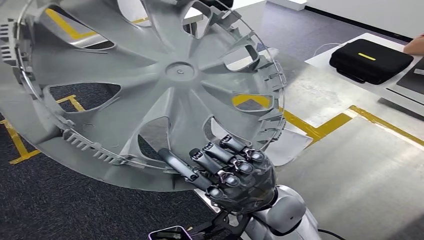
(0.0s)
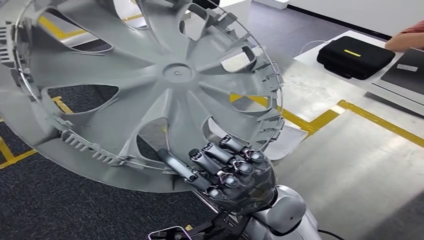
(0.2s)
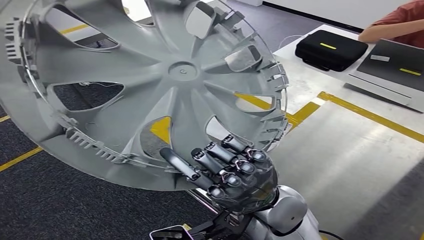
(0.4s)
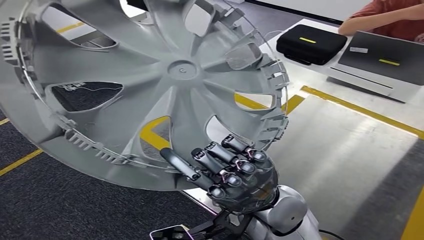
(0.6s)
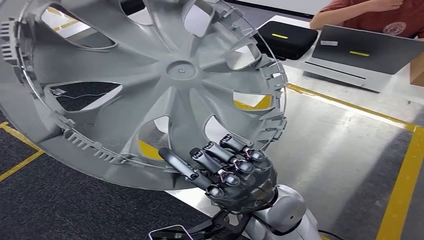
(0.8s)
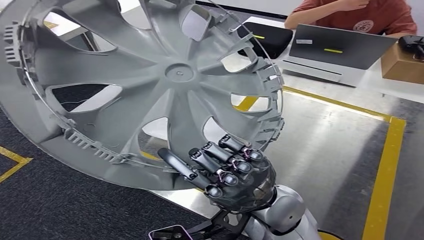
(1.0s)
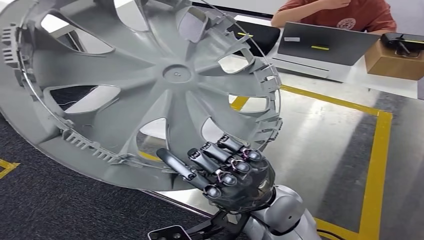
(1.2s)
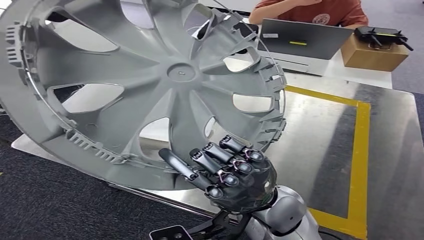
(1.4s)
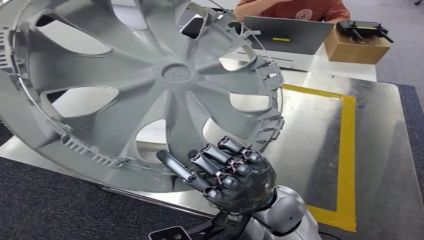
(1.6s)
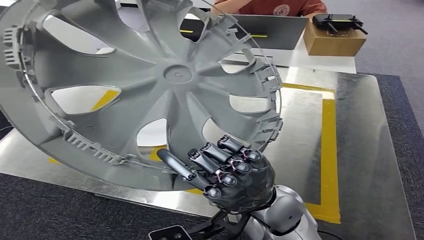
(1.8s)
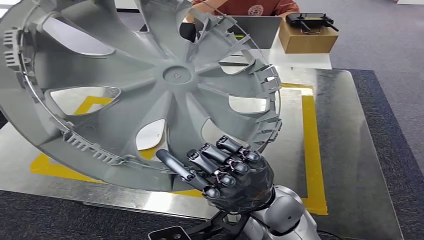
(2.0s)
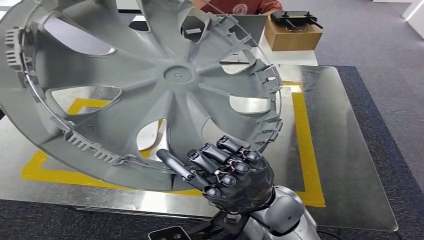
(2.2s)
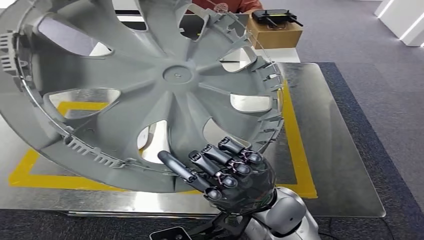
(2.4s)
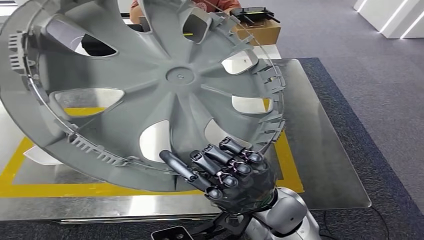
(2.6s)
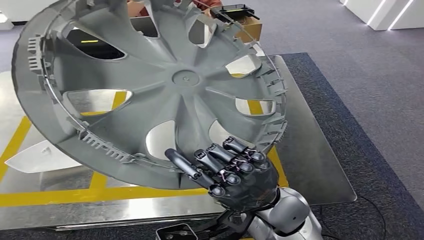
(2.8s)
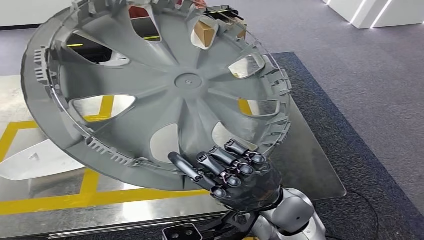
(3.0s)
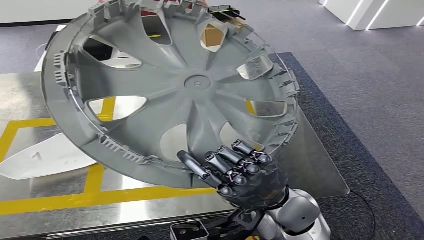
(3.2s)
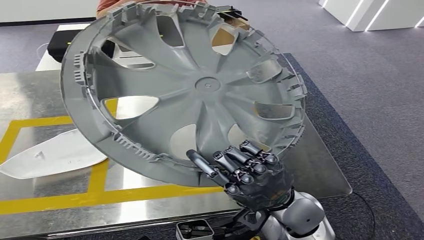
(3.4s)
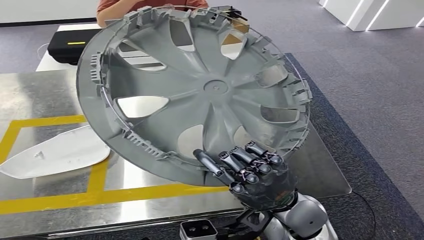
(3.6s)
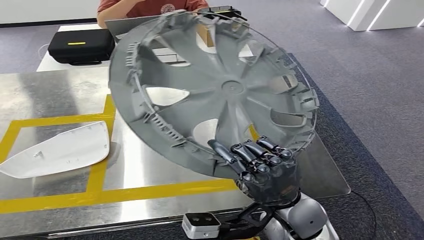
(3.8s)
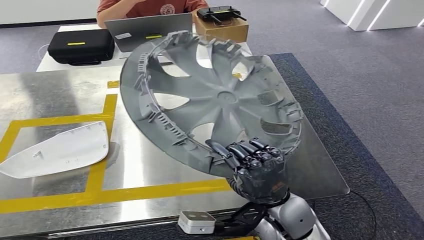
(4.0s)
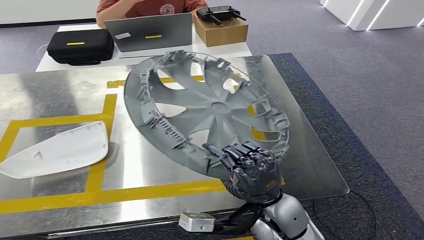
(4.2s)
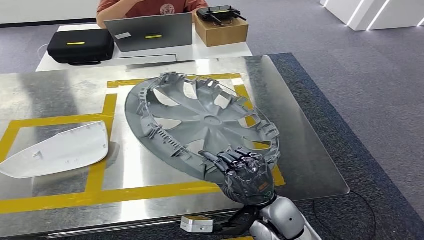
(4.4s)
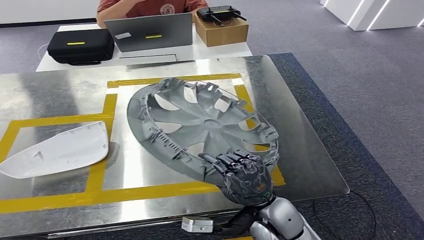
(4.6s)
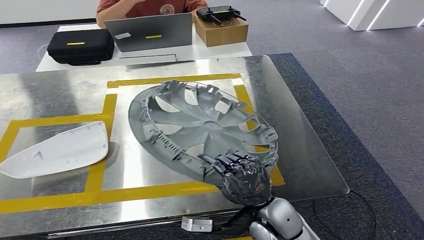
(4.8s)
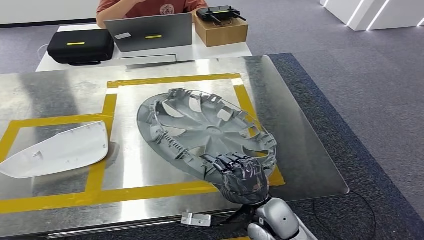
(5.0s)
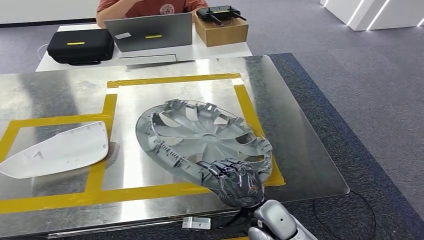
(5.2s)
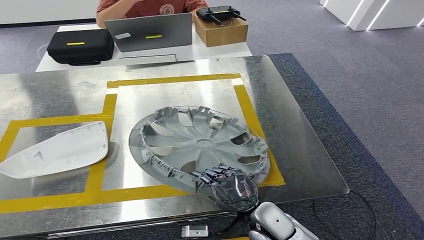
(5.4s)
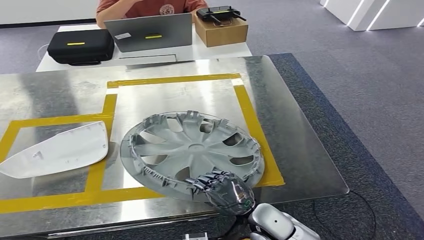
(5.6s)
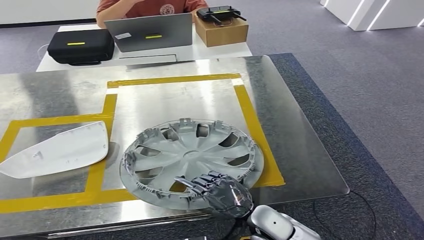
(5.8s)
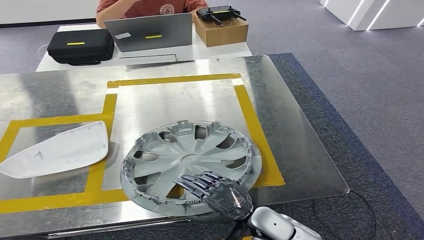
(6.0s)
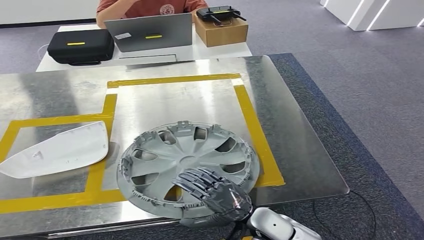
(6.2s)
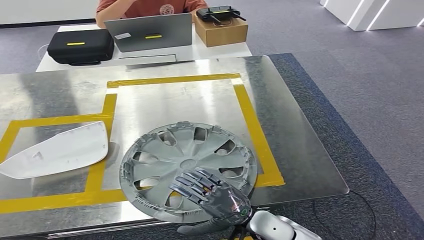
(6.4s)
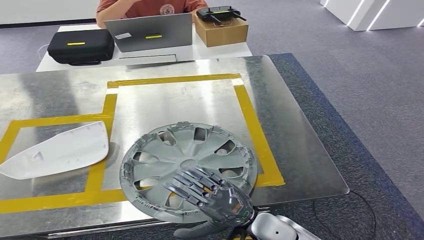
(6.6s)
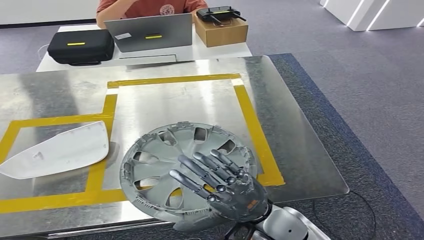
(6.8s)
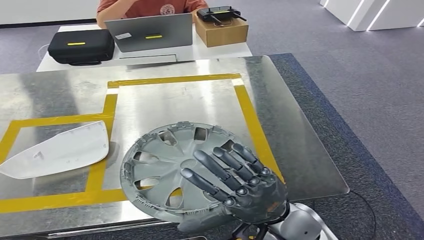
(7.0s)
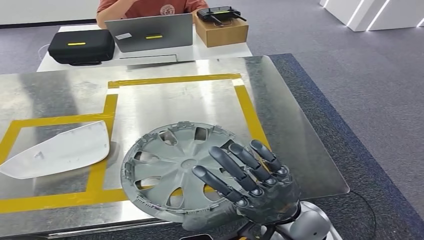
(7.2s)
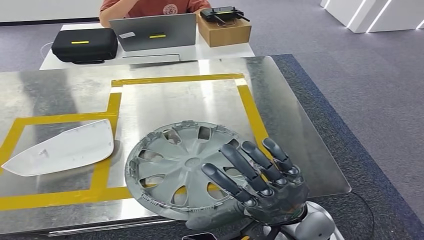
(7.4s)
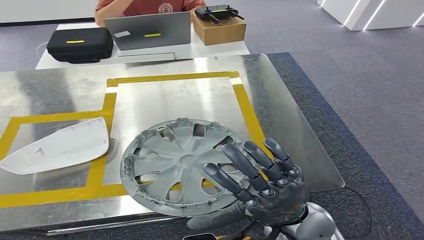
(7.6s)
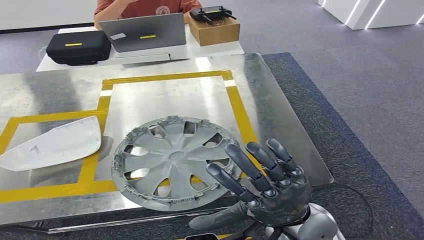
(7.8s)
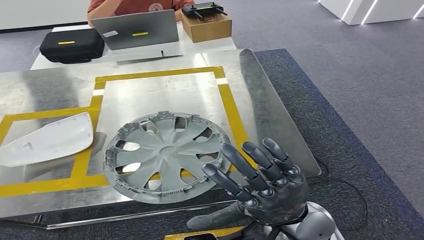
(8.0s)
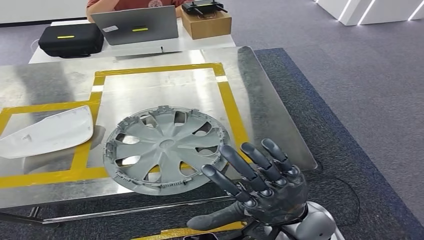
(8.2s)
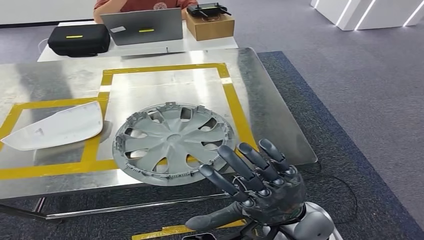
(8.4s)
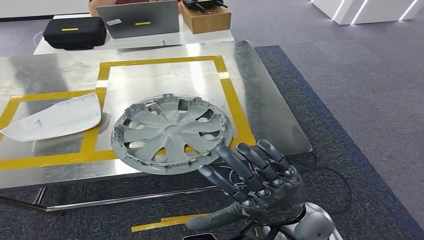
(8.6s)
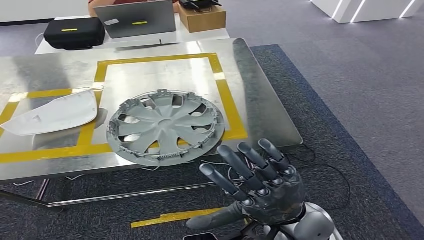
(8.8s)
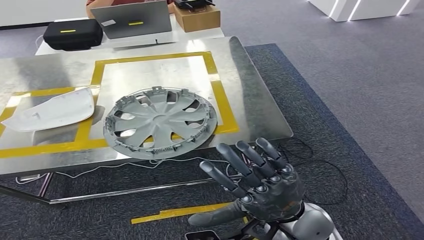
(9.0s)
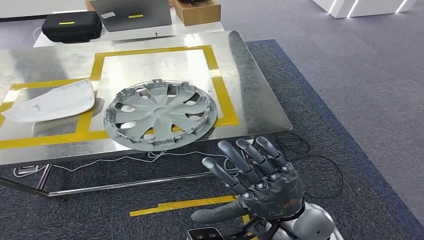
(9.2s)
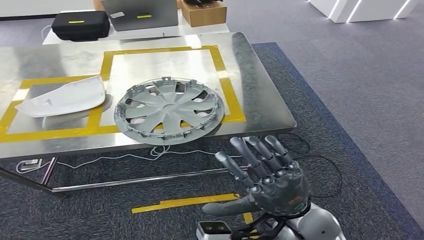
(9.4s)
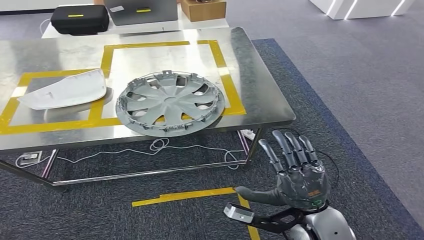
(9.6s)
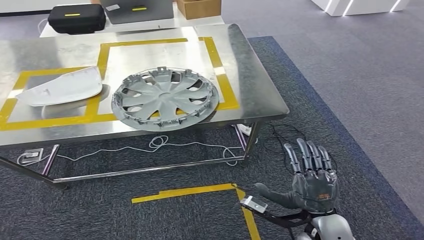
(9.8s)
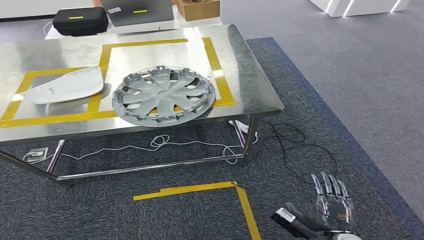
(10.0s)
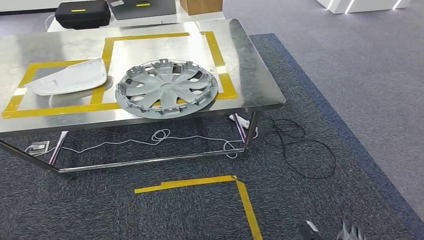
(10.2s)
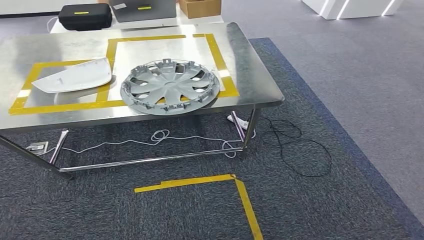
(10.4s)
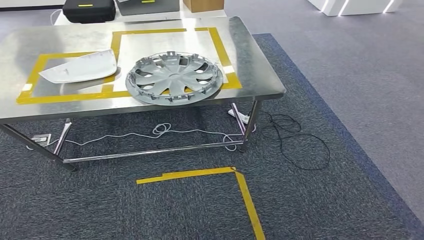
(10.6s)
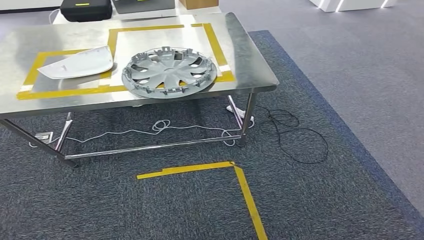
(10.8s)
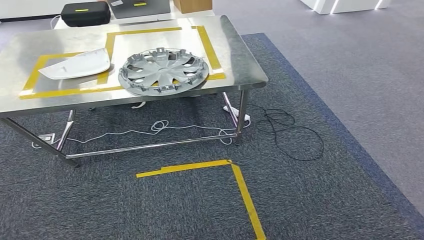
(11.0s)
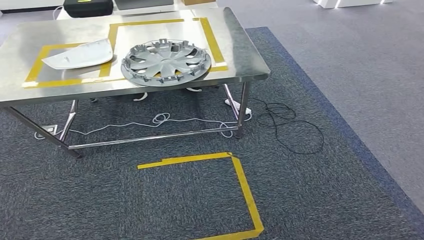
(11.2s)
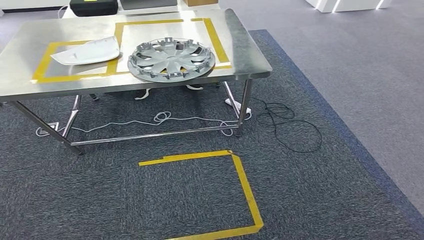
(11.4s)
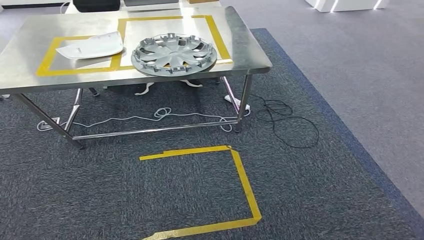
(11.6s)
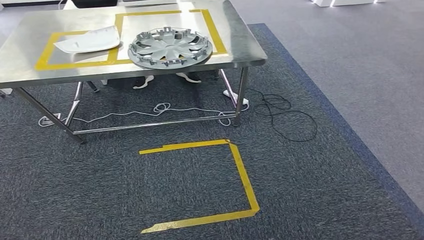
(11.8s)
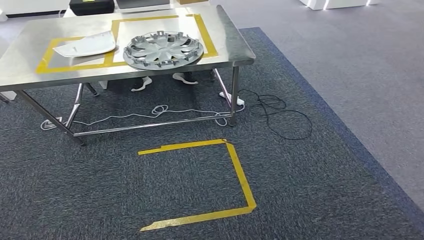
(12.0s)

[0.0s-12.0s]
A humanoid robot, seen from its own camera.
Step, 0.0s to 2.4s: Move the small parts to the workbench.
Step, 2.6s to 7.6s: Insert the small parts into the corresponding holes on the workbench.
4.4s to 6.0s: The right hand travels downward by some 10 cm.

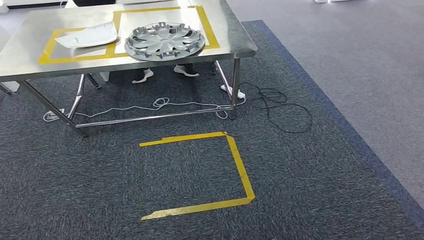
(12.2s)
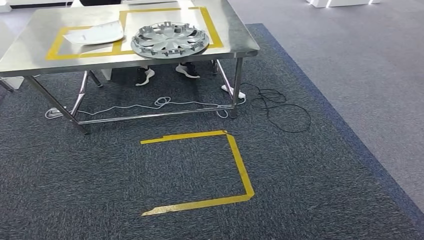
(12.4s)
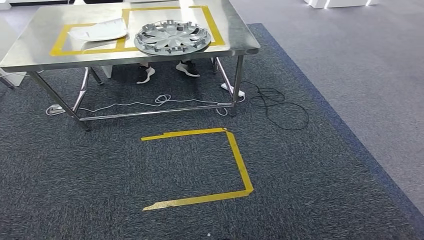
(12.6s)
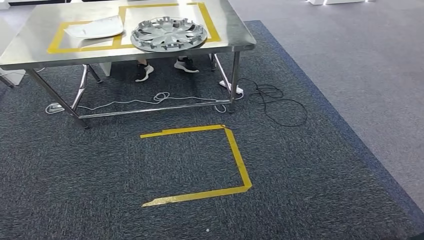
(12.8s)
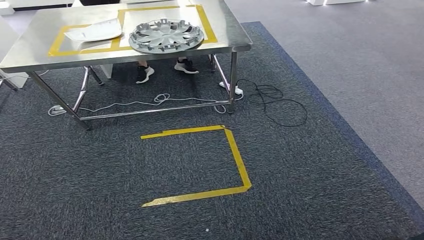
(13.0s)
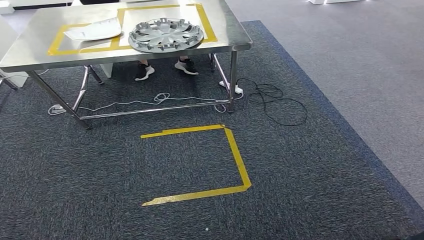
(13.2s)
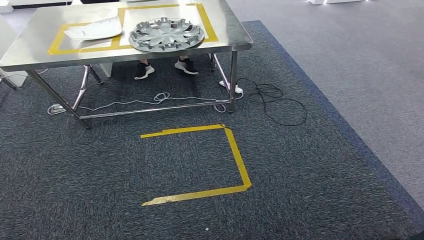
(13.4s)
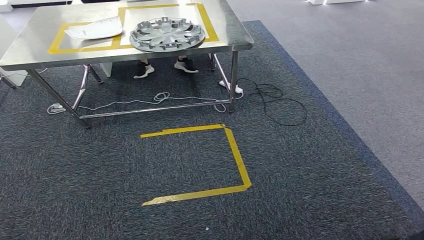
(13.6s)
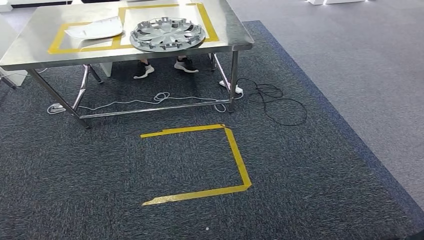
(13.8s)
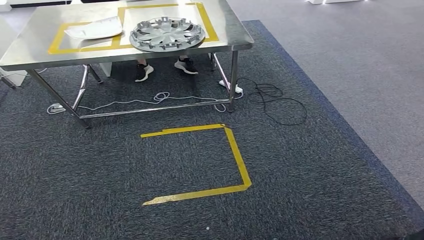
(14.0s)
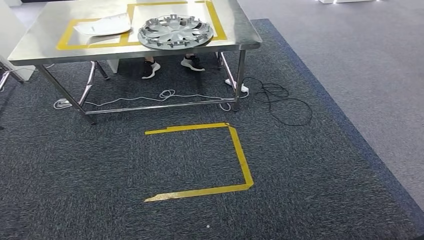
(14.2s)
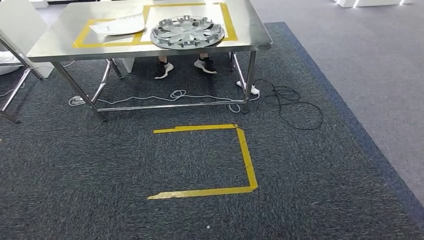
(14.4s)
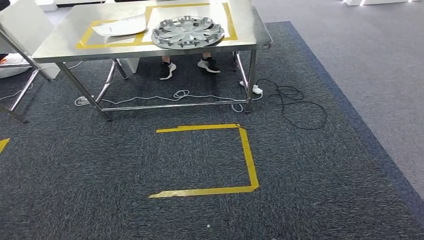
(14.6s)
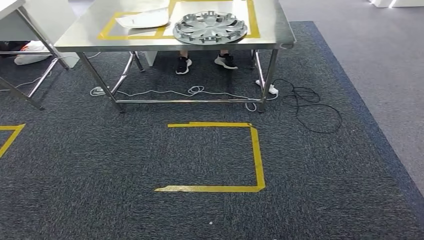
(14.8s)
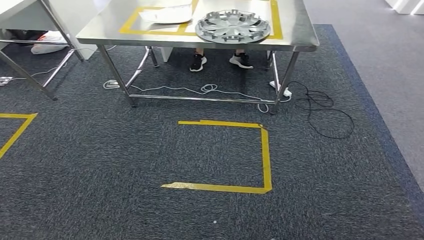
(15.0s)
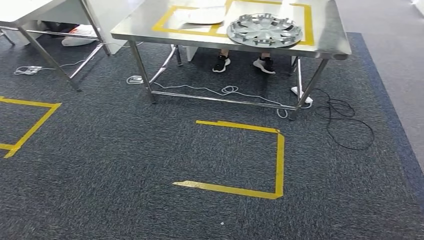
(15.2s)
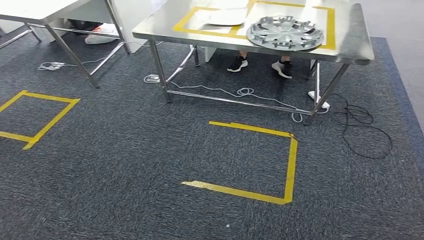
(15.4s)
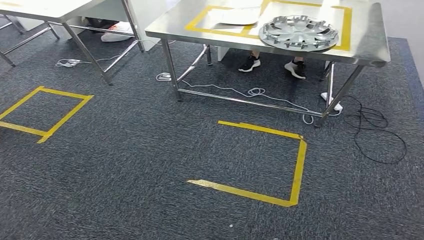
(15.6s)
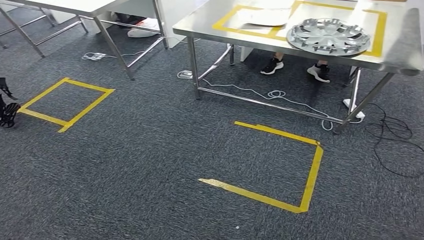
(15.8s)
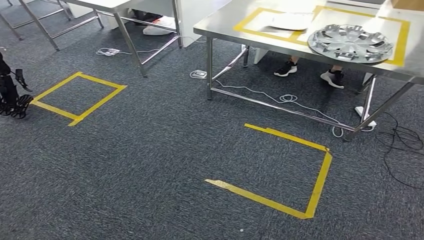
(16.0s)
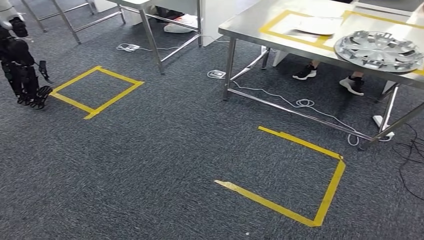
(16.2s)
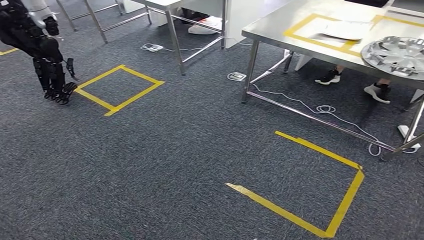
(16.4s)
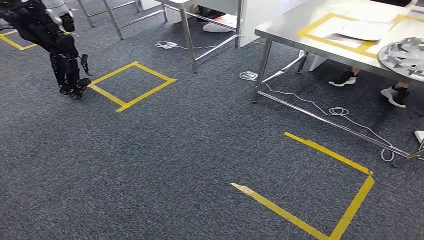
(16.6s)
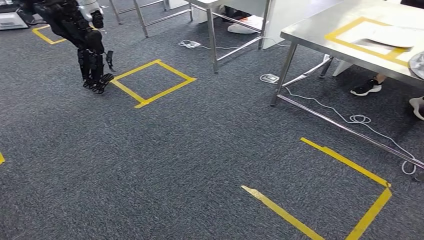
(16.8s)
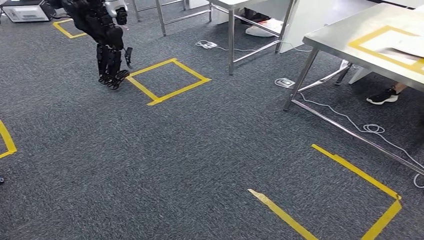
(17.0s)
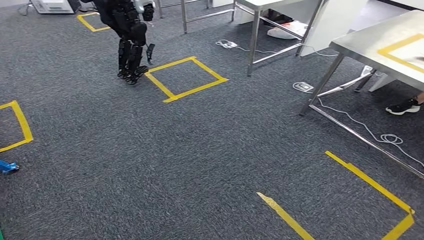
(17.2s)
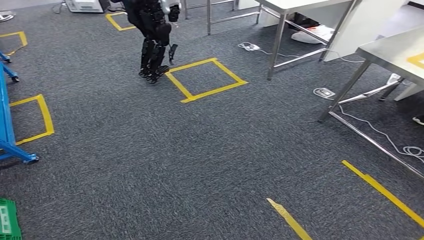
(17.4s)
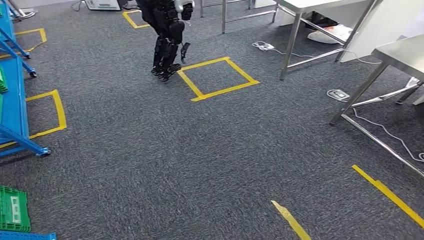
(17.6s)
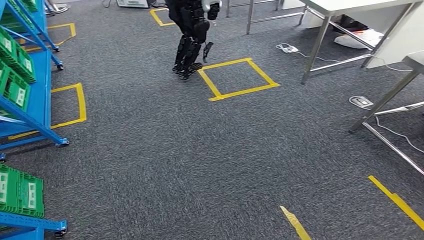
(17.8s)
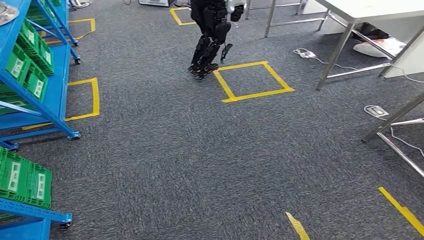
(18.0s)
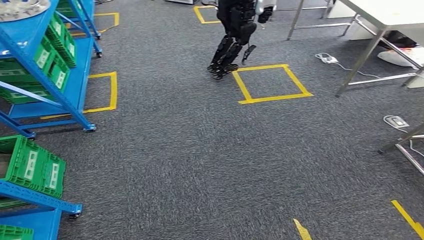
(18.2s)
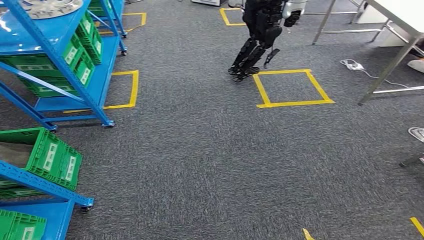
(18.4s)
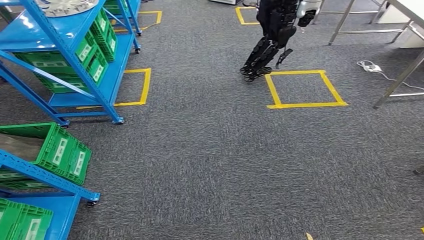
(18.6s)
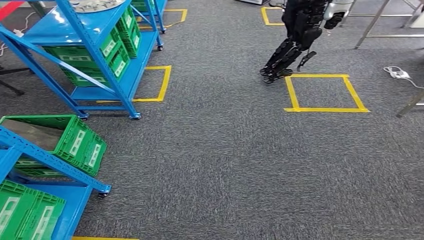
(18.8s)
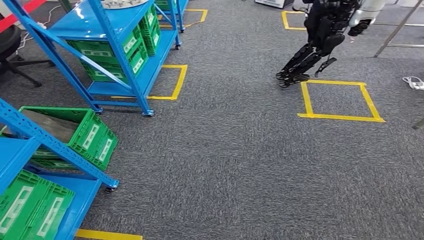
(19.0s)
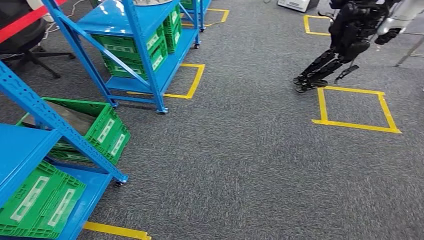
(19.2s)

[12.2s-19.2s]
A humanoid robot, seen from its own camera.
12.2s to 13.6s: The two hands keep their place.
